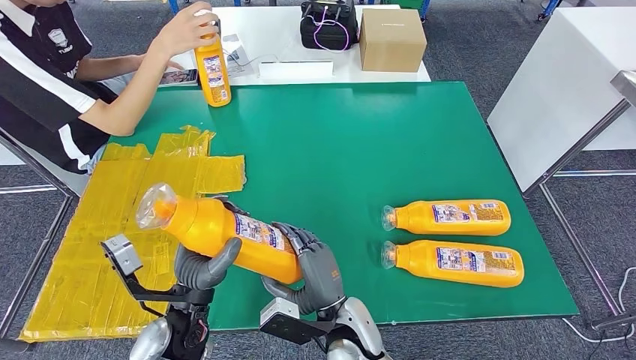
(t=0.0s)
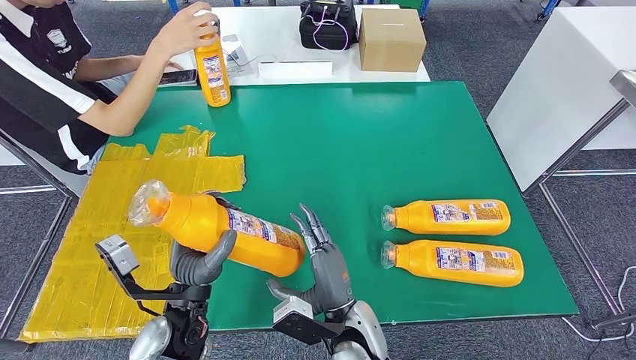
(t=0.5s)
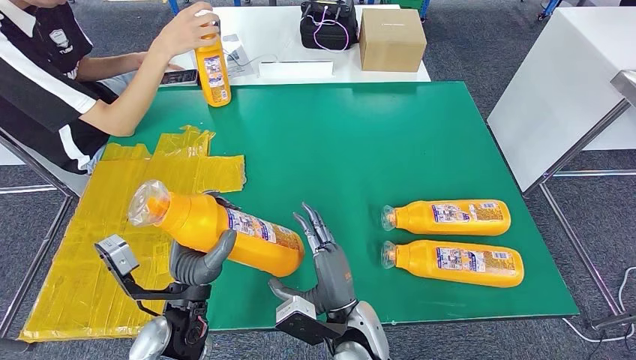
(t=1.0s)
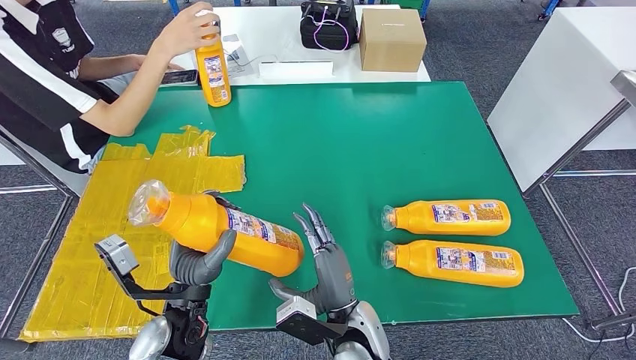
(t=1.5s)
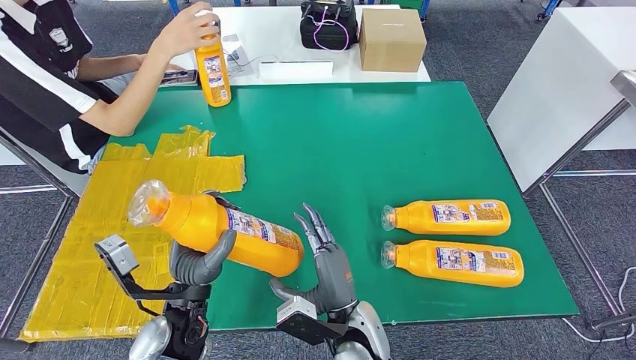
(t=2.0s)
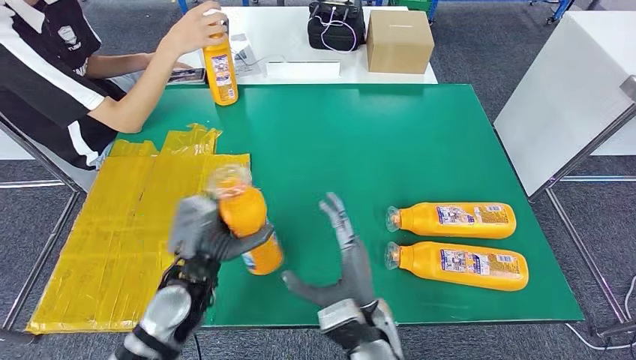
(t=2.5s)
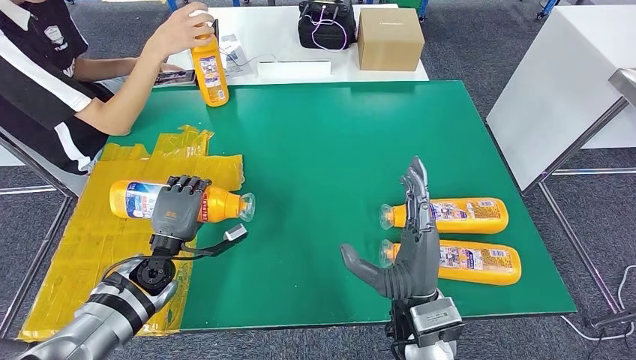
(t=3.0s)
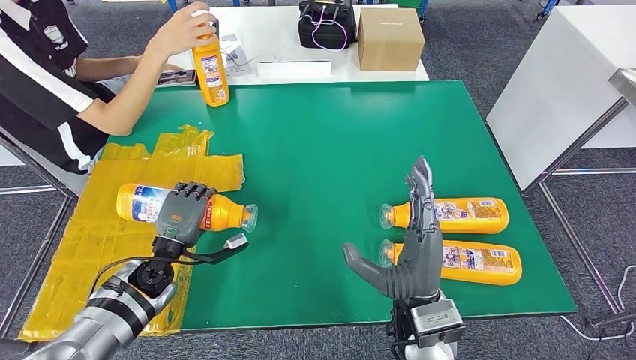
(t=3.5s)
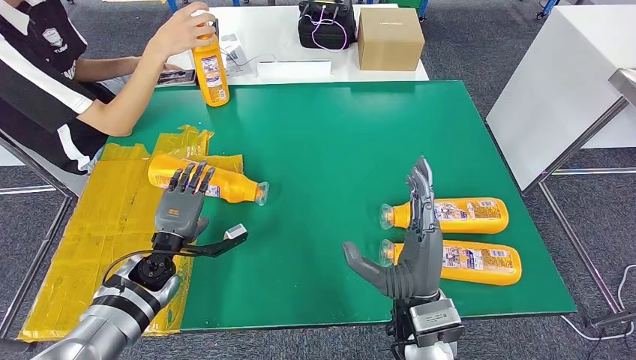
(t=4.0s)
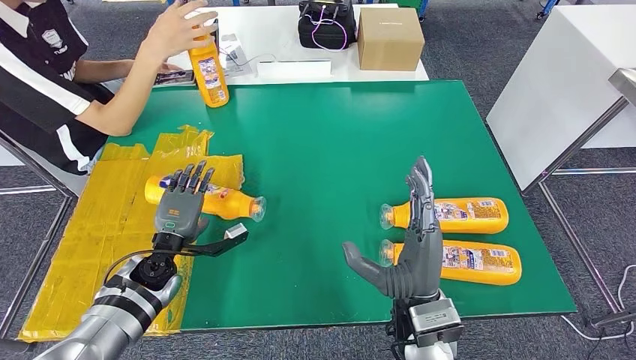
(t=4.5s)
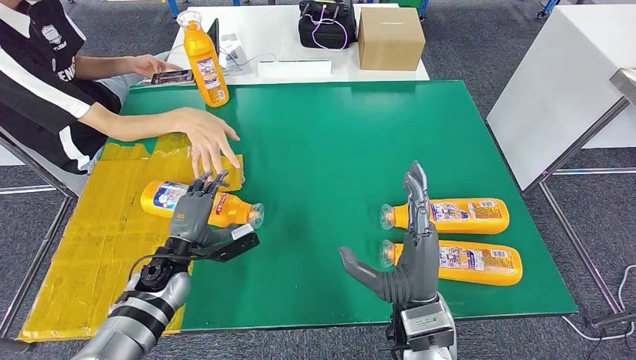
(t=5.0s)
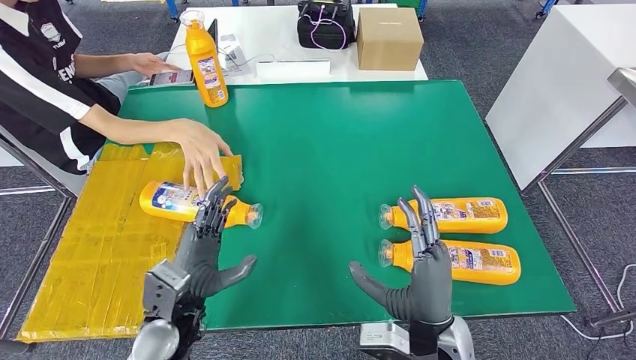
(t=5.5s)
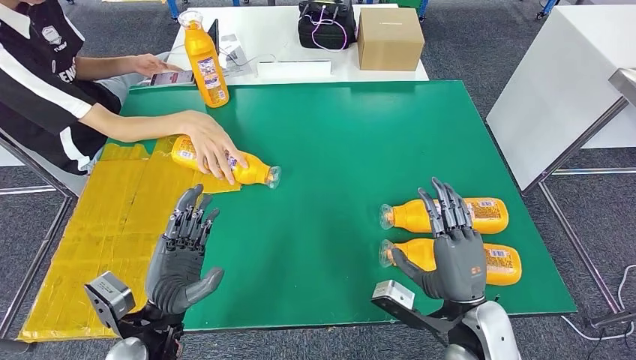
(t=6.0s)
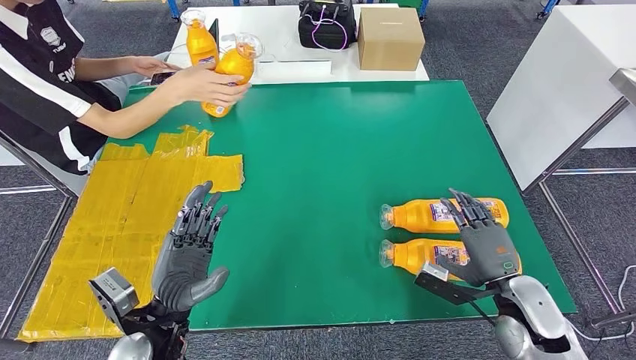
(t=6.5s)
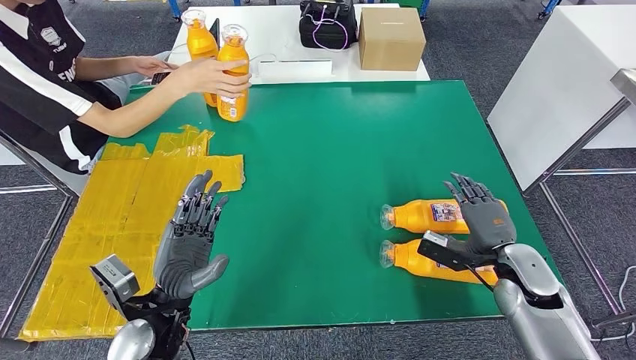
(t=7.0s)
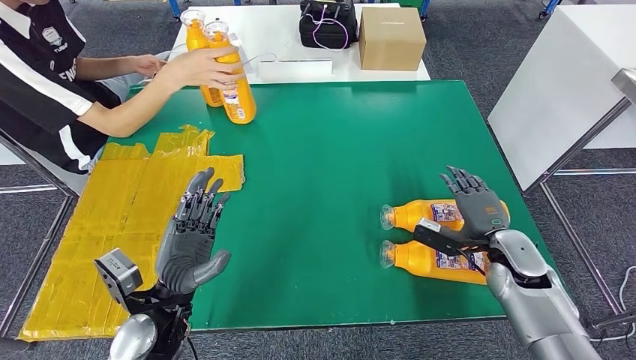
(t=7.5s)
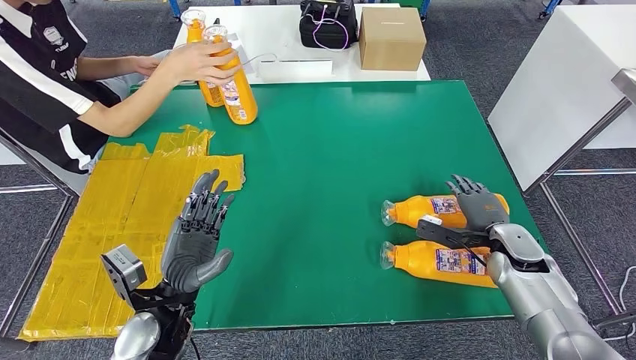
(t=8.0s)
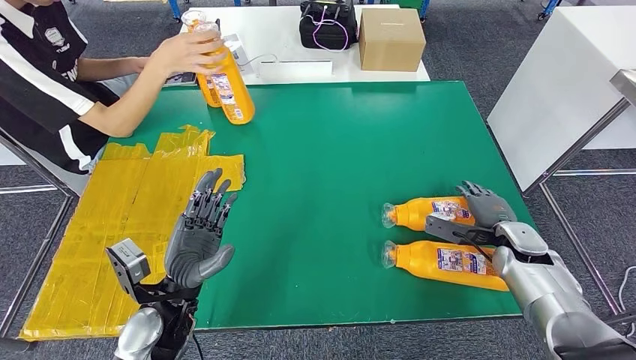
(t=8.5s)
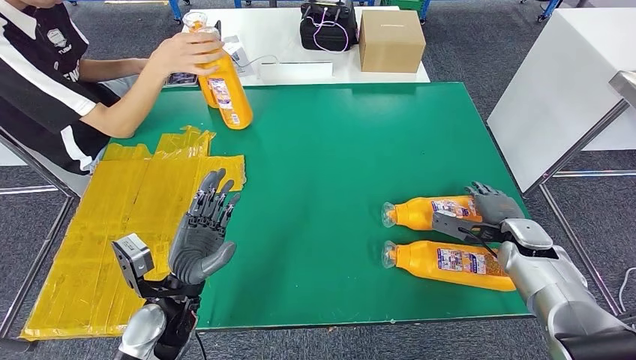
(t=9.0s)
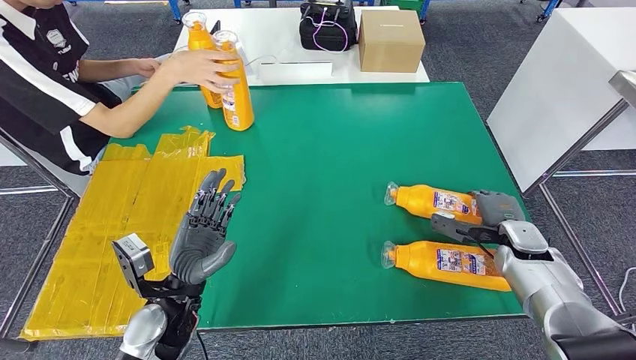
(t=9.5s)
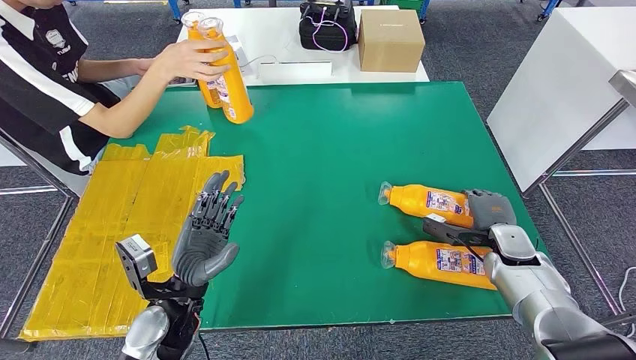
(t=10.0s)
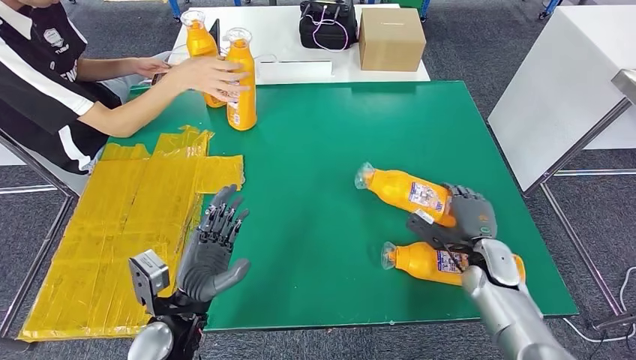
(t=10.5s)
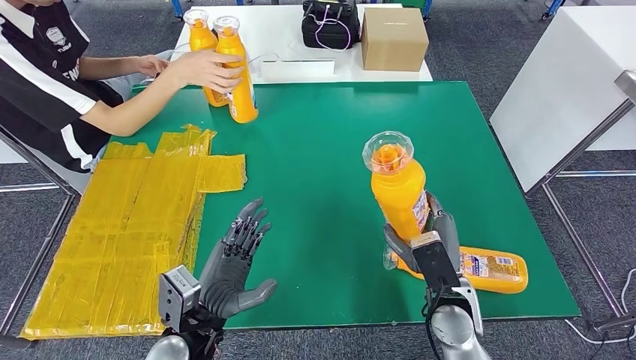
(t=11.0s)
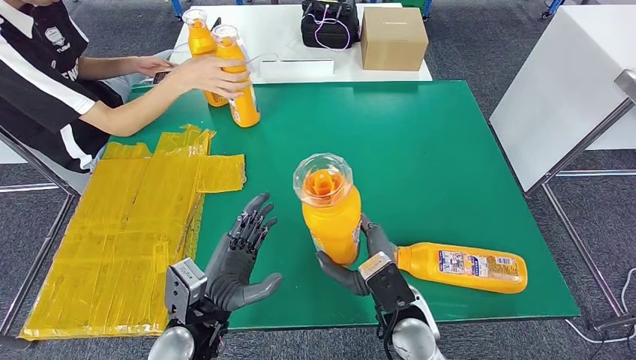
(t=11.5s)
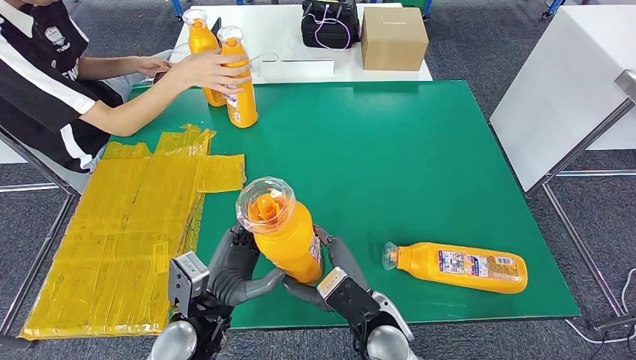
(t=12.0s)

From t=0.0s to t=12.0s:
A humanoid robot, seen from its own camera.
Step, from t=0.0s to t=6.0s: Flip the bottle to face forward.
From t=0.0s to t=2.0s: The hands stay close to where they were, moving slightly.
From t=8.0s to t=10.0s: There are only small adjustments of the hands.

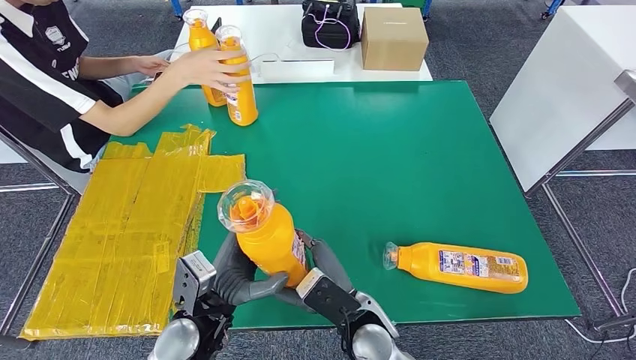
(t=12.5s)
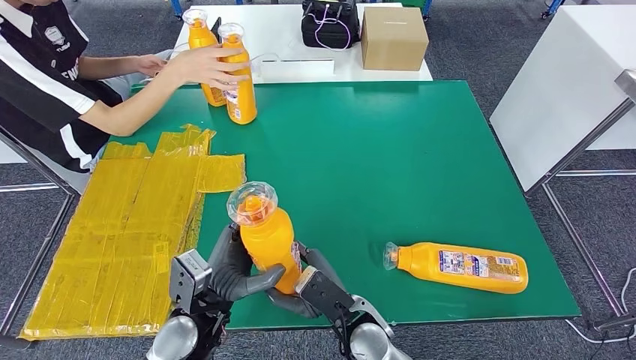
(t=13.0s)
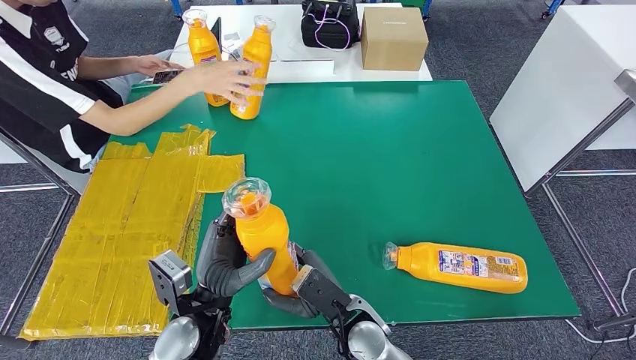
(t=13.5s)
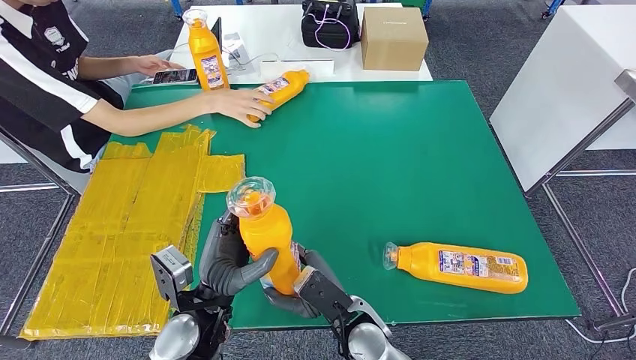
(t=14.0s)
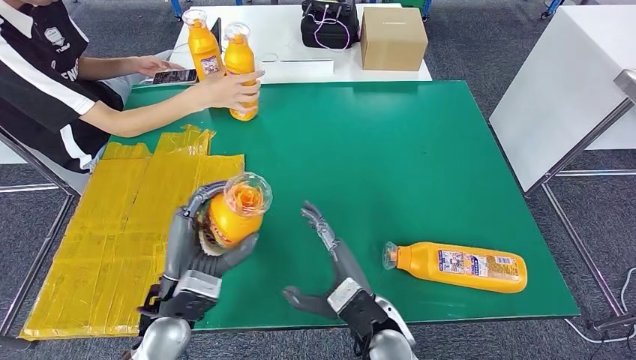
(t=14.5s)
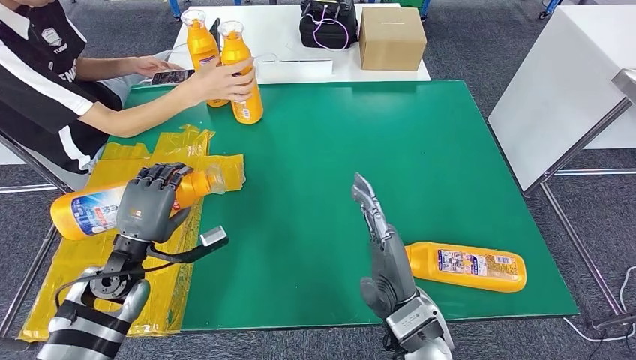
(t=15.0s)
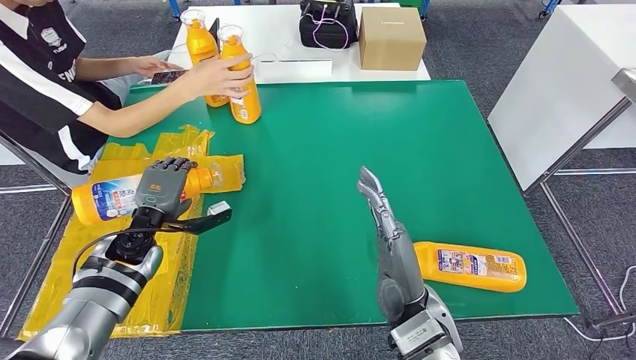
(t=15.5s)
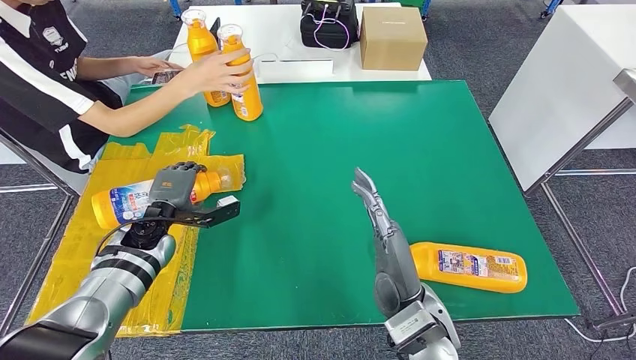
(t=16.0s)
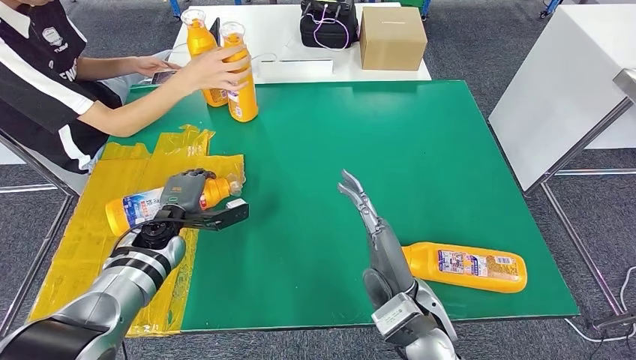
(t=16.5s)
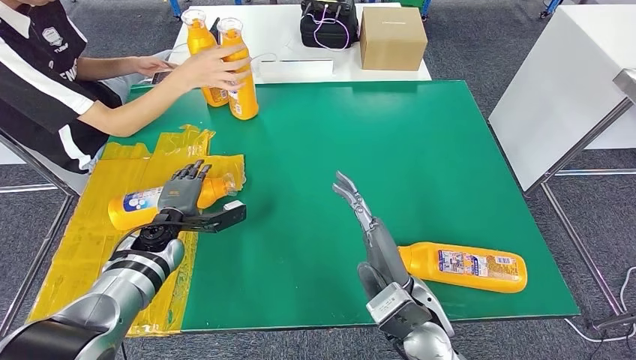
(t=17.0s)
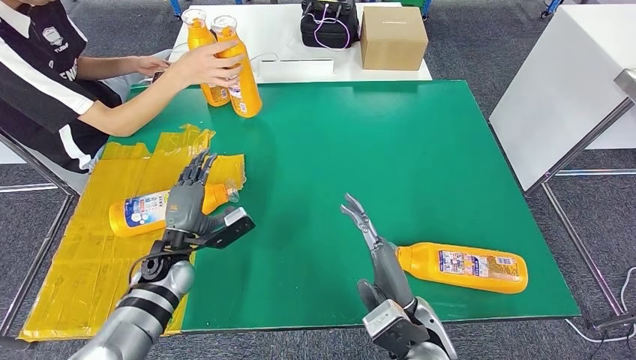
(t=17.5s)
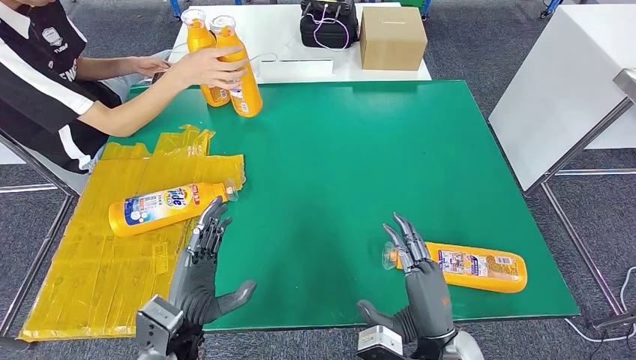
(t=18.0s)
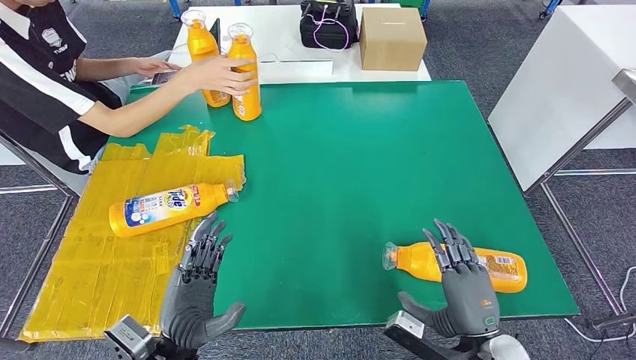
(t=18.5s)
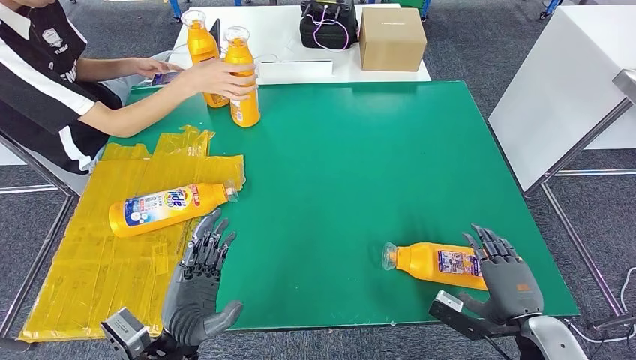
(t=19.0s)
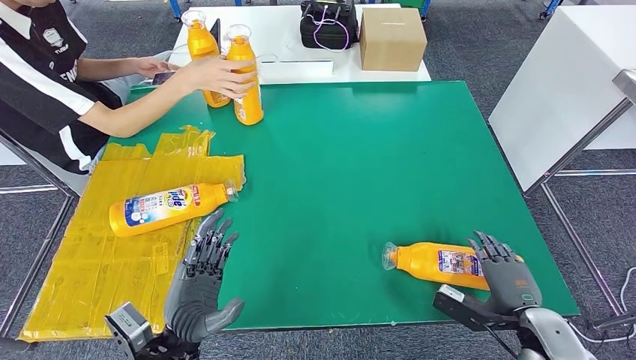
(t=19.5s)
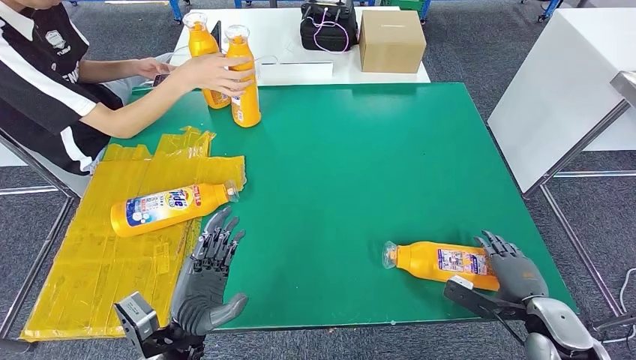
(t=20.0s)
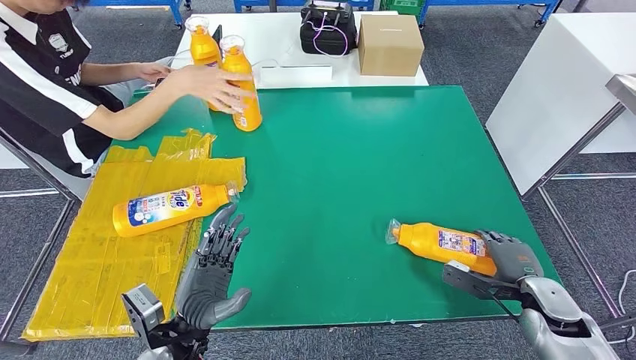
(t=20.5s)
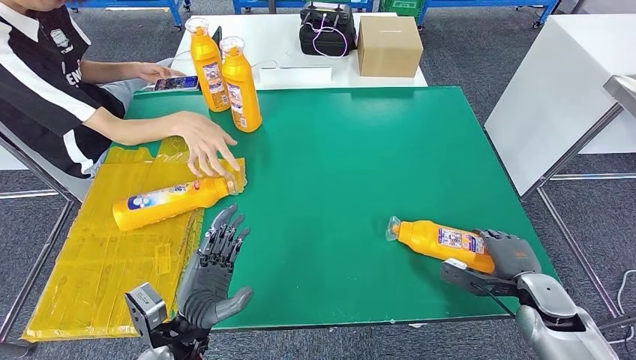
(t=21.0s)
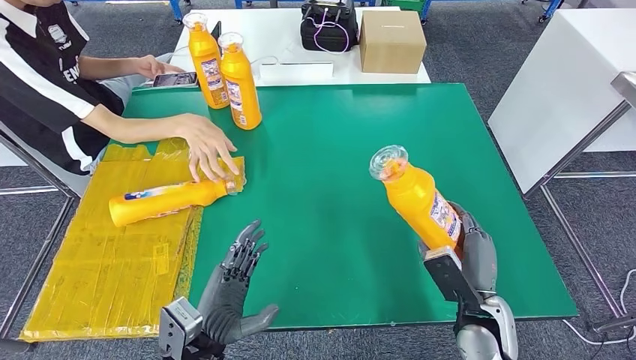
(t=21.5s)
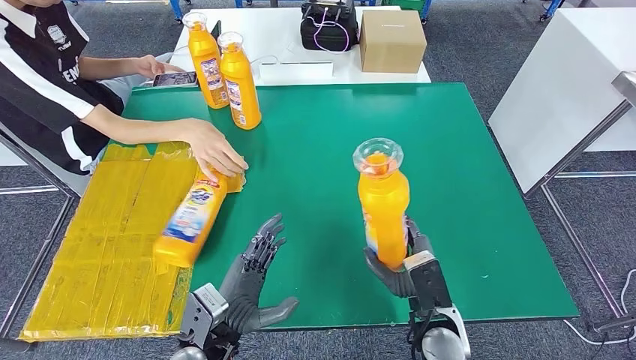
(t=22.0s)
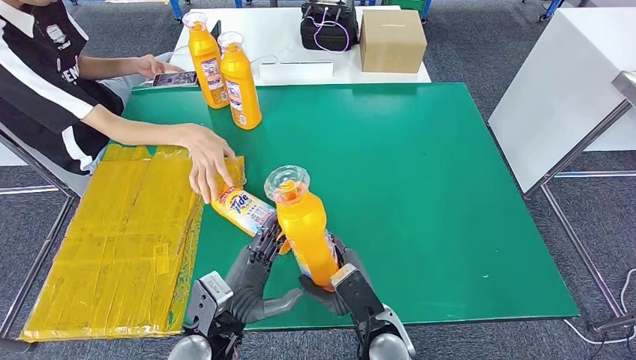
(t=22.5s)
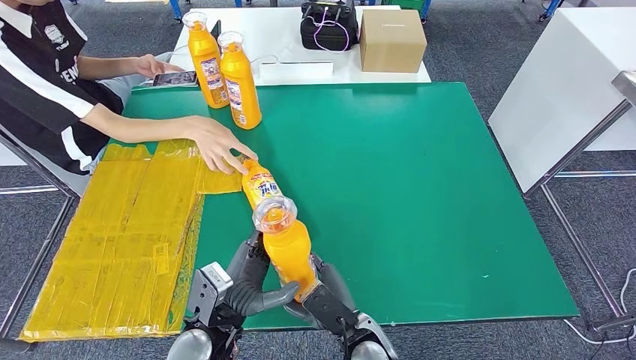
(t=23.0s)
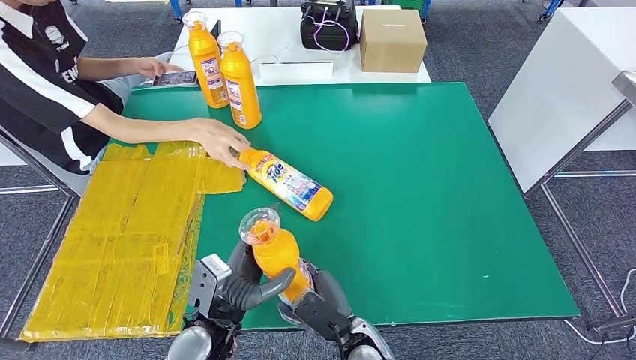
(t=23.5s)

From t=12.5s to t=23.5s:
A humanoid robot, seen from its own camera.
Step, from t=13.5s to t=16.5s: Flip the bottle to face forward.
Step, from t=17.0s to t=22.5s: Pick up the bottle from the table.
From t=16.0s to t=18.0s: The right hand shifts roughly 5 cm downward and to the right. The left hand travels backward and to the right by approximately 25 cm.
From t=18.0s to t=20.0s: The right hand travels to the right by some 20 cm.
From t=20.0s to t=21.5s: The right hand is displaced to the left by approximately 15 cm.
From t=21.5s to t=23.5s: The right hand is displaced to the left by about 20 cm.
